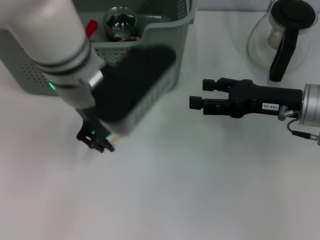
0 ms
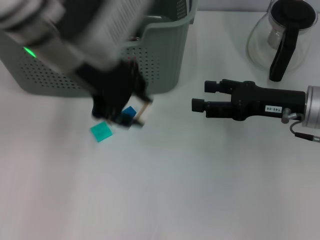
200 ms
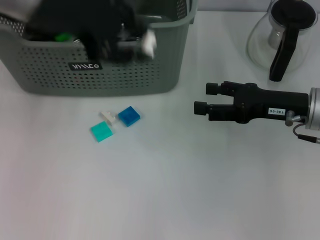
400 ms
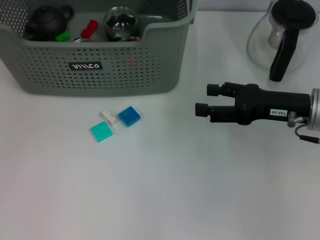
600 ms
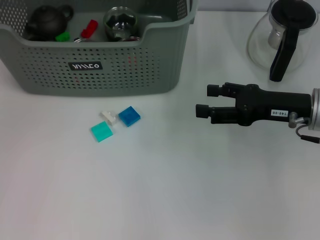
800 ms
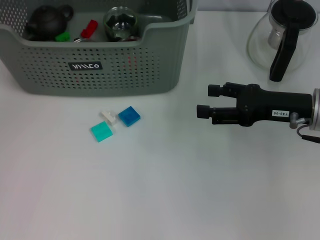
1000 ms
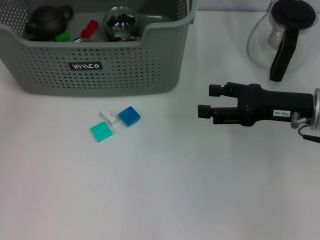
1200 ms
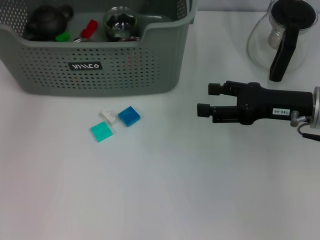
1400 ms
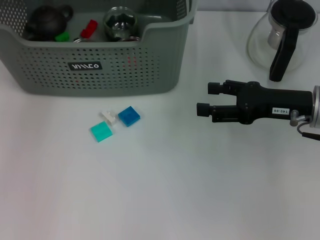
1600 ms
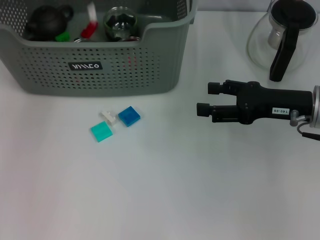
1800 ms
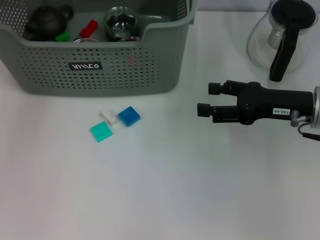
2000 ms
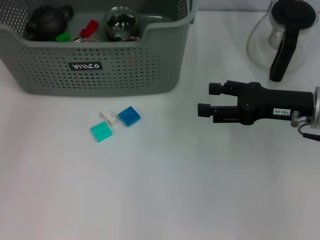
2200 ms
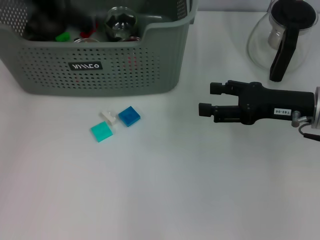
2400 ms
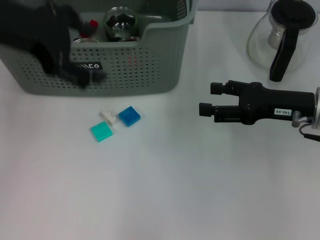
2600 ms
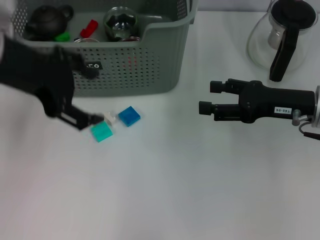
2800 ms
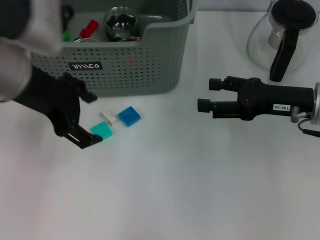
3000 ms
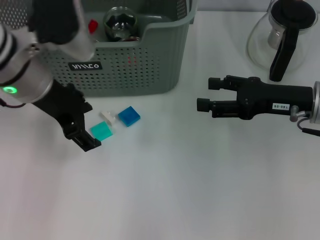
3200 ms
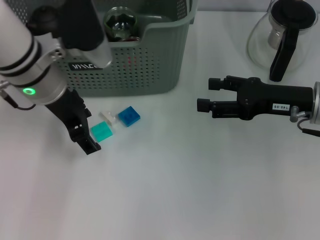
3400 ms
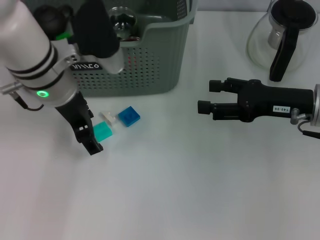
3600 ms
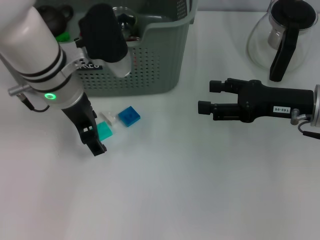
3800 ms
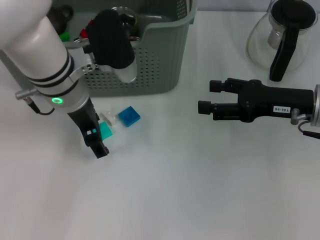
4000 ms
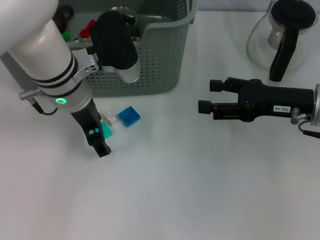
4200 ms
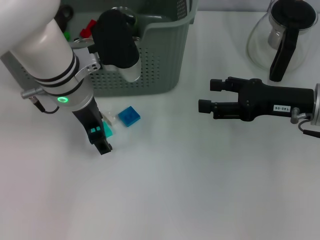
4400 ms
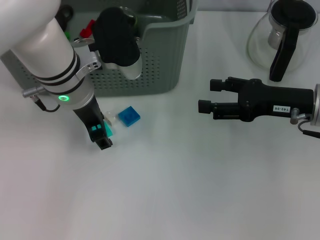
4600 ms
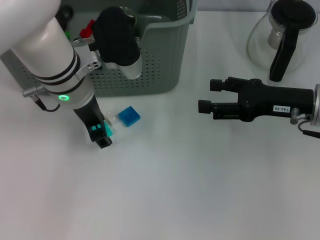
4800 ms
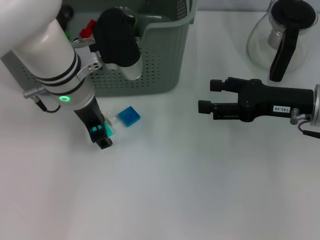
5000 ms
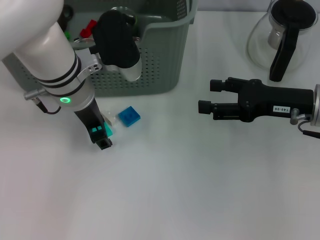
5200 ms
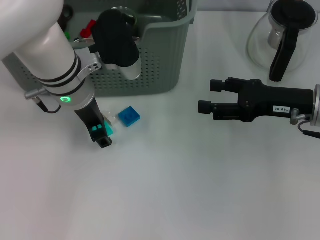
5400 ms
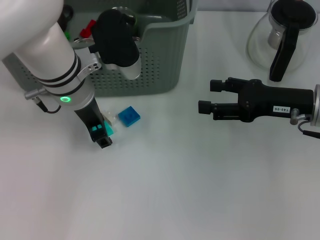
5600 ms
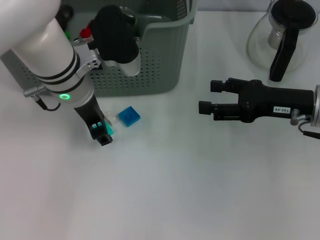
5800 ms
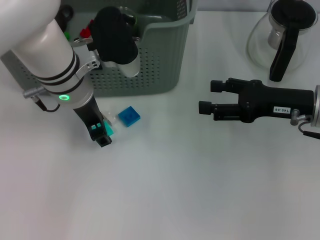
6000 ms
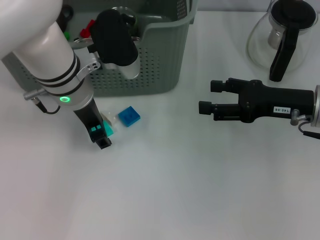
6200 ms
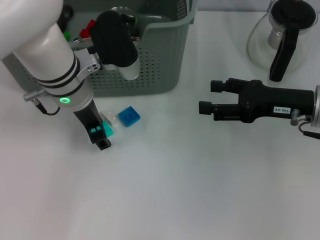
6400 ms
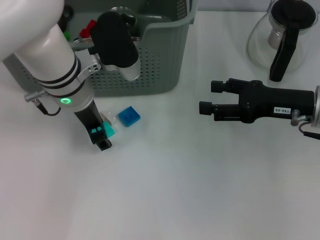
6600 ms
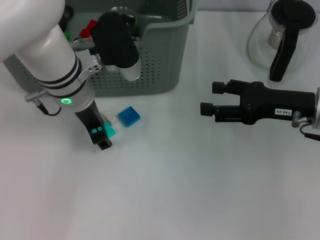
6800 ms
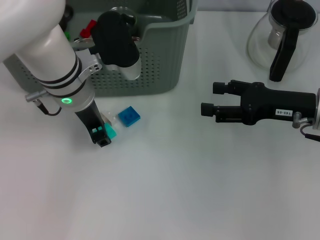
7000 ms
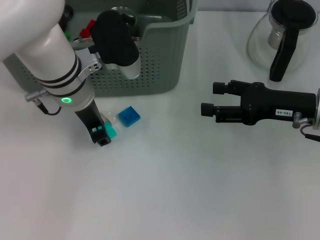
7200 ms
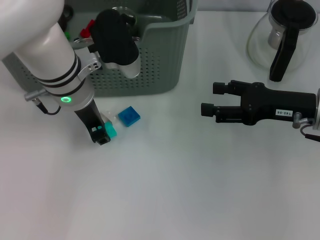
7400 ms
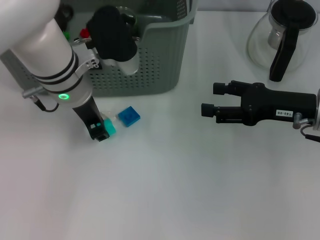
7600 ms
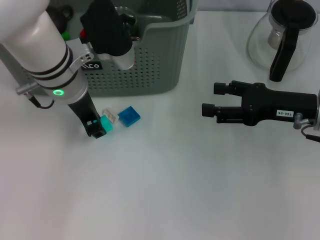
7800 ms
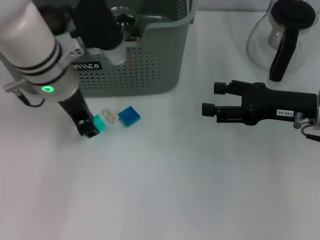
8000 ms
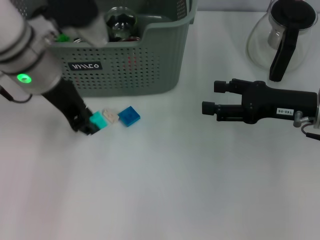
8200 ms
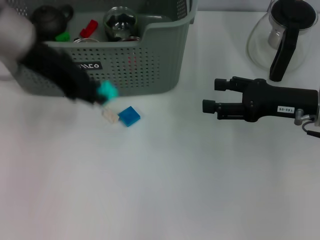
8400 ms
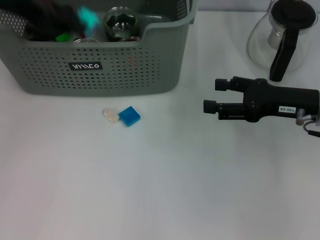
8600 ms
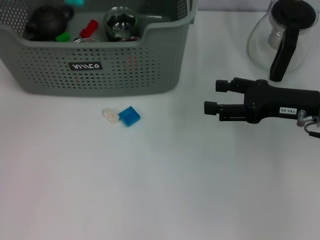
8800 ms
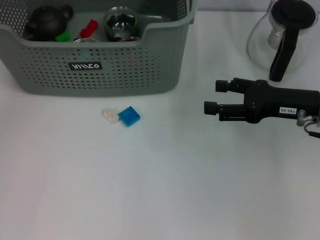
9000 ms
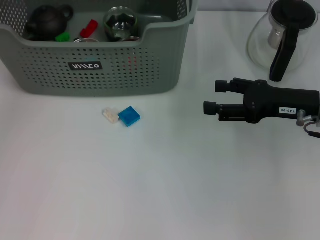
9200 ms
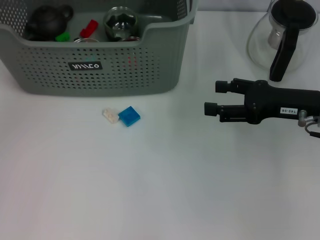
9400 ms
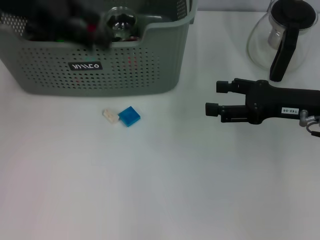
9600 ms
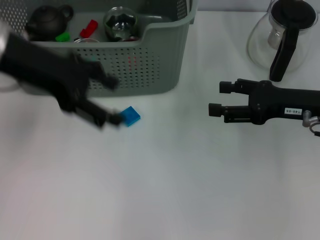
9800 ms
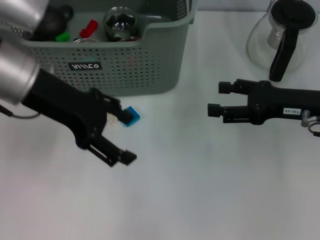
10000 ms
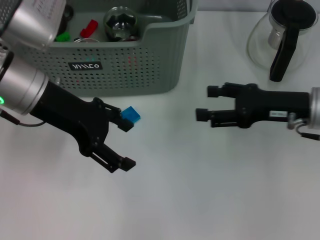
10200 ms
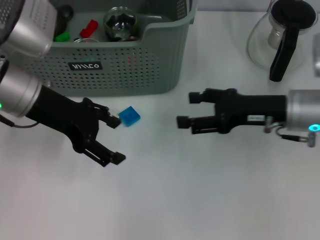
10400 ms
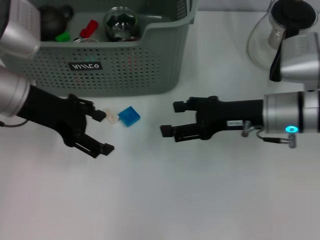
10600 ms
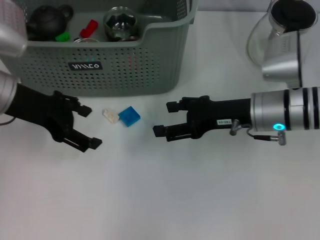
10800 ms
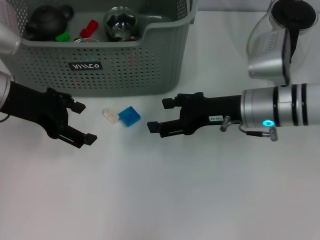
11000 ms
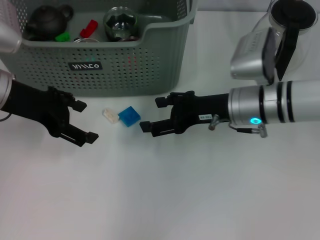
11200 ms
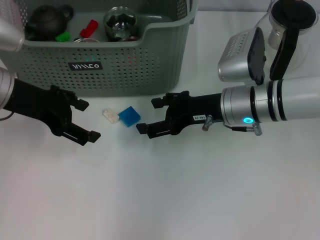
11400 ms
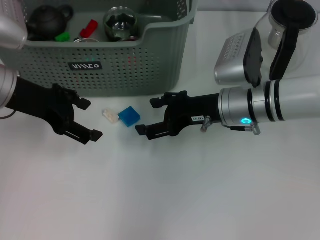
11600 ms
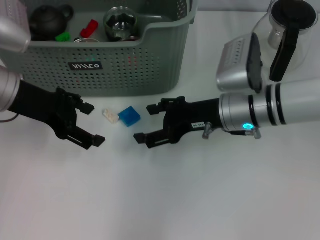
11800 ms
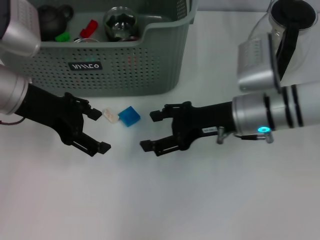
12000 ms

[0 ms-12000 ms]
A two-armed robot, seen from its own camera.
Task of the whole recording: pick up the teacup on the table and place it into the storage bin, pick up the block on the table and place it into the storage bin.
Step, 0 ms to 2000 ms: Place the white block in the storage box with left gripper.
Step, 2200 ms to 7200 ms: Grasp the light blue block with left gripper.
Step, 7600 ms to 9200 ms: Place the light blue block in the storage box with left gripper.
0 ms to 1600 ms: The left gripper shifts some 20 cm forward and to the left.
1600 ms to 3000 ms: The left gripper shifts approximately 15 cm backward, and opens its fingers.
3000 ms to 4400 ms: The left gripper heads downward and to the right, covering roughly 10 cm.
4400 ms to 7600 ms: The two grippers keep their place.
7600 ms to 9000 ms: The left gripper shifts approximately 20 cm to the left and upward.
9000 ms to 10400 ms: The left gripper shifts about 15 cm downward, backward and to the right, and opens its fingers.
10400 ms to 12000 ms: The right gripper is displaced to the left by some 5 cm.

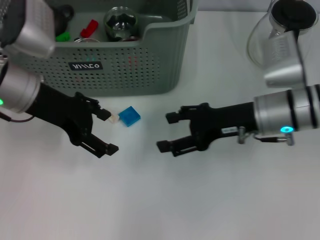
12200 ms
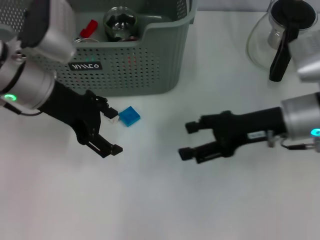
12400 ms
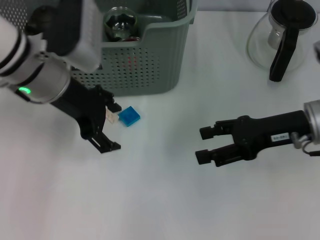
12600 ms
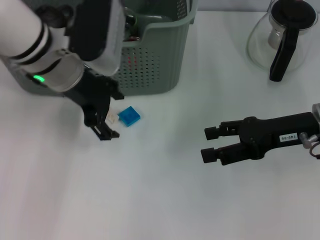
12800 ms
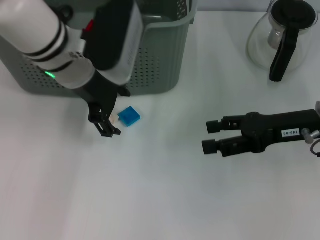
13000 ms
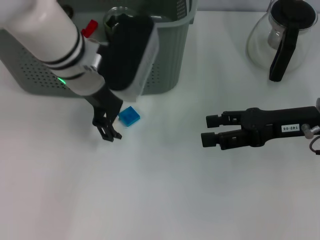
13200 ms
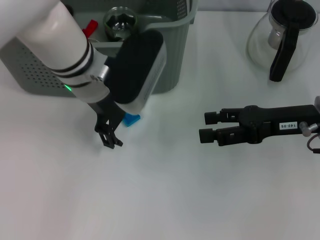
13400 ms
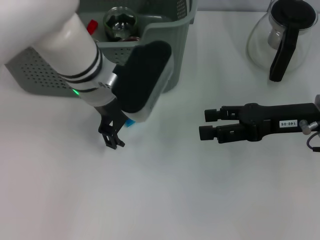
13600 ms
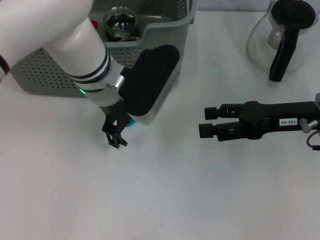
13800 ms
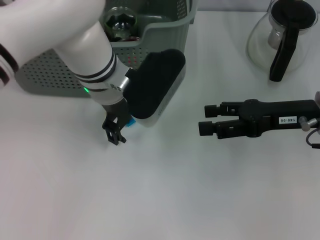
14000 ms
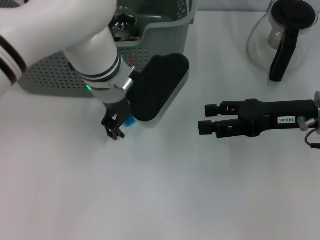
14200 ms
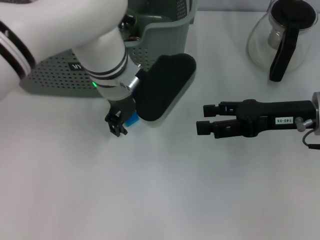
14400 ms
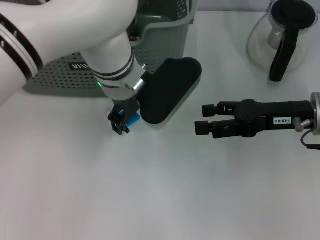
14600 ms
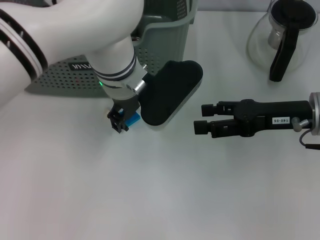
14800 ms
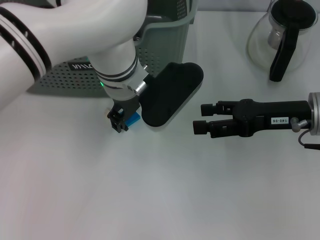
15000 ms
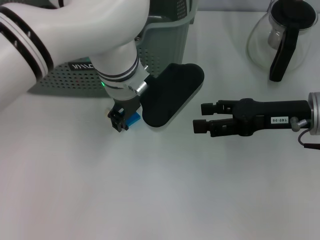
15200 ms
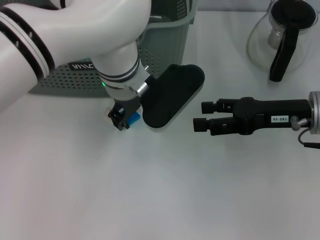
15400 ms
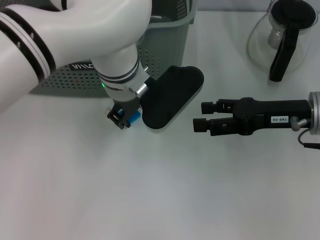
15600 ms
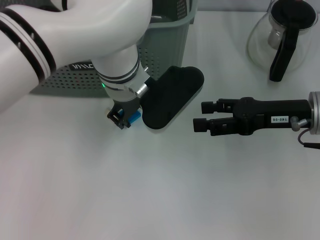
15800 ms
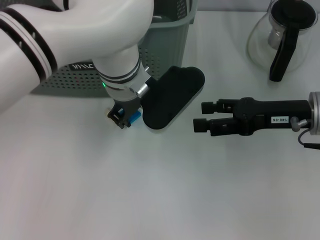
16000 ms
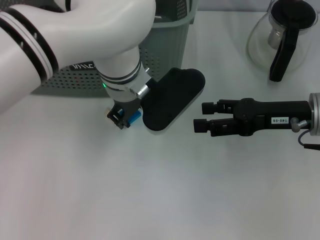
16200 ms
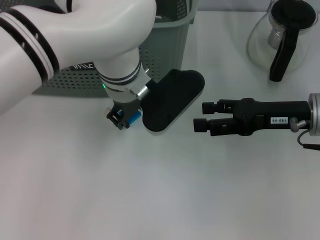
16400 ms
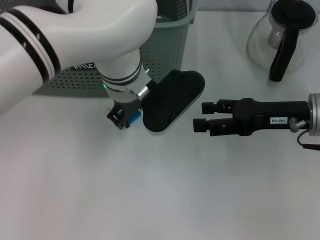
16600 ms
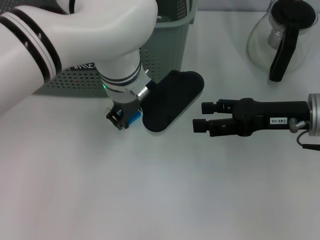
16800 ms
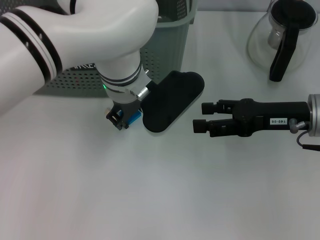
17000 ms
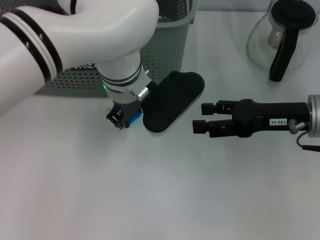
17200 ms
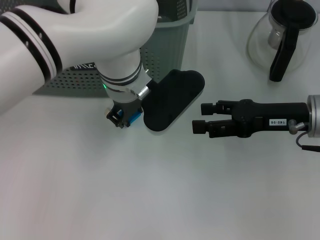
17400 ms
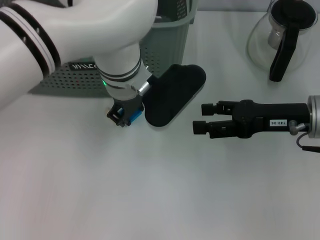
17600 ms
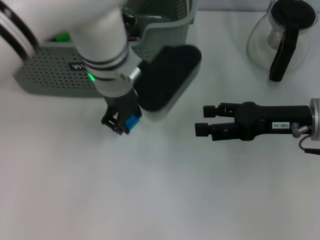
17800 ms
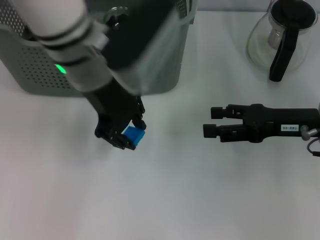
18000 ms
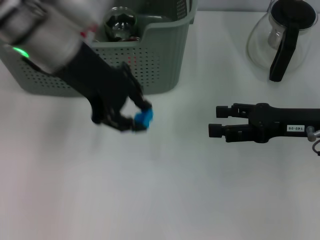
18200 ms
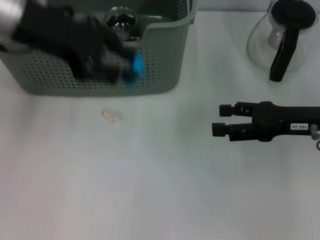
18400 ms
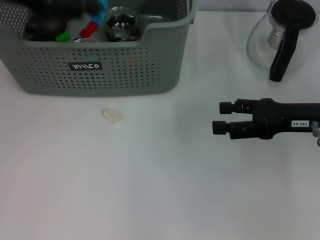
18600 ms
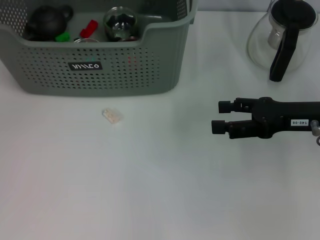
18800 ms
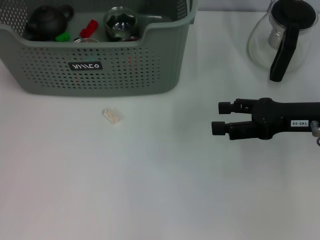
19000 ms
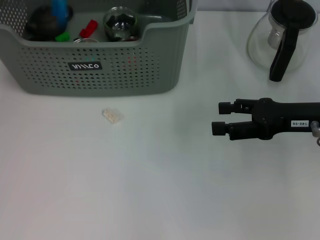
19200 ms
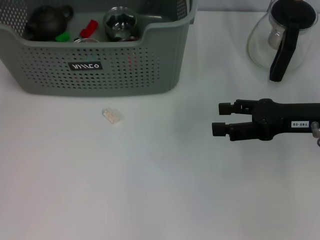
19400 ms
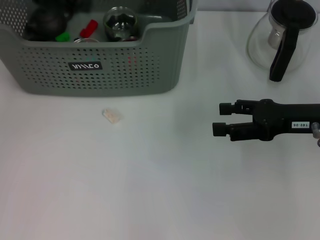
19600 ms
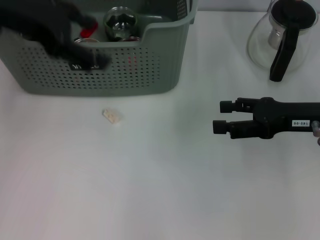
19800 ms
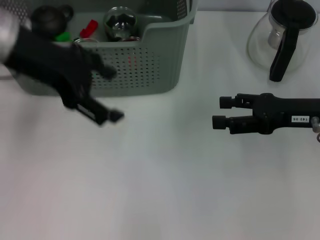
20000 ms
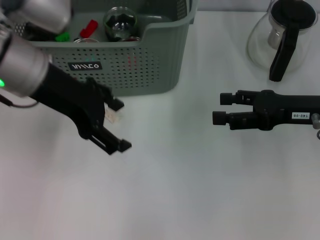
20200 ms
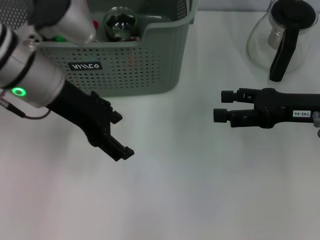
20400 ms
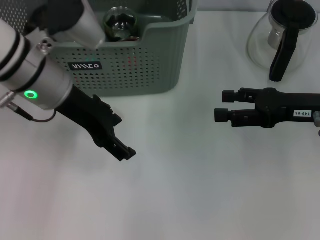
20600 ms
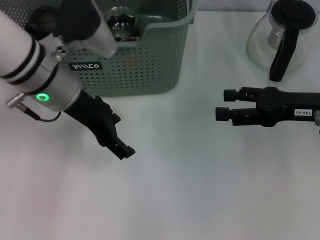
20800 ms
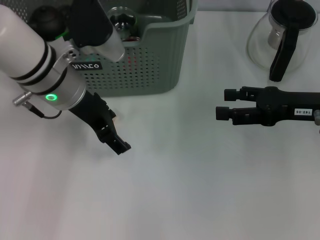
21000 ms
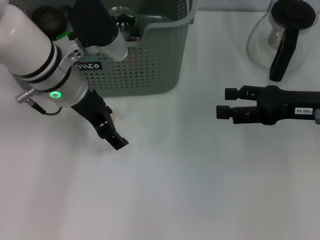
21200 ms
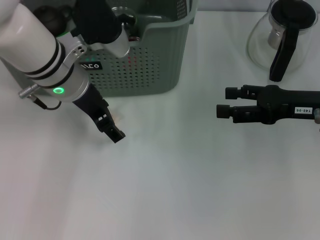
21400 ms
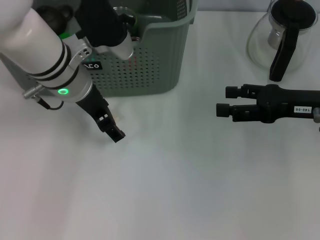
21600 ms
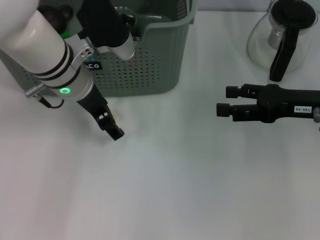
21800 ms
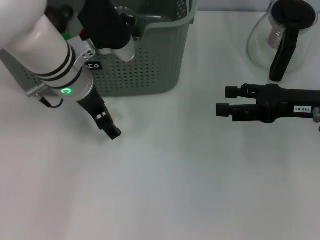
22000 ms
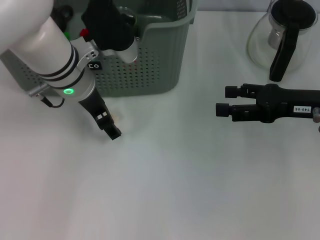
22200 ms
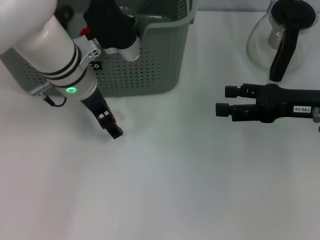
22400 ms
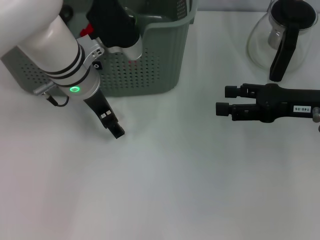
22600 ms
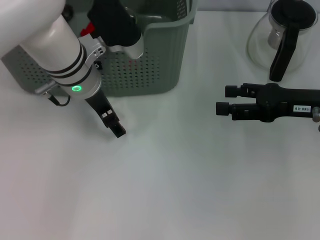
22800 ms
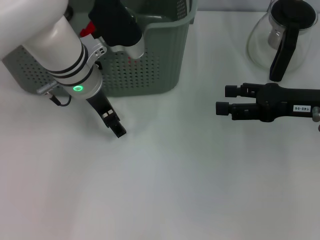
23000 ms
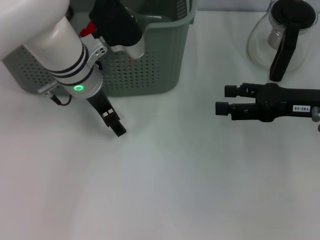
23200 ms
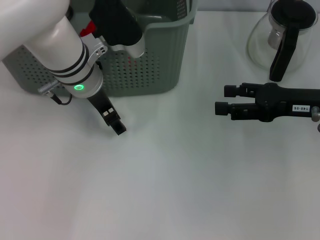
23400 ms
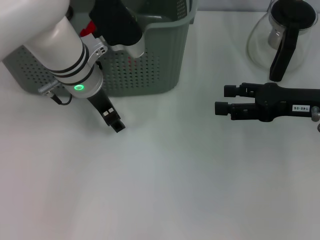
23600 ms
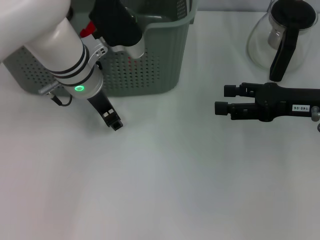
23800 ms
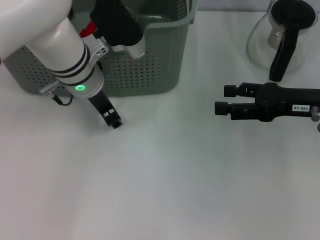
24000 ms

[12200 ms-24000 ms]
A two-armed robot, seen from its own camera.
Task of the whole recording: pick up the teacup on the table and place it into the storage bin, pick up the block on the table and place it into the storage bin.
Step, 12200 ms to 17400 ms: Grasp the dark blue block with left gripper.
Step, 17600 ms to 19400 ms: Place the dark blue block in the storage box with left gripper.
Step, 19600 ms to 24000 ms: Grasp the white block with left gripper.
12200 ms to 13600 ms: The right gripper is displaced to the right by roughly 5 cm, while the left gripper is displaced to the right by roughly 10 cm.
15200 ms to 16600 ms: Both grippers stay about where they are.
16600 ms to 18200 ms: The left gripper travels upward and to the left by some 15 cm.
18200 ms to 19600 ms: The left gripper goes roughly 10 cm to the left.
19600 ms to 21000 ms: The left gripper shifts approximately 15 cm to the right and downward.
21000 ms to 22600 ms: There are only small adjustments of the grippers.
22600 ms to 24000 ms: The left gripper closes.
